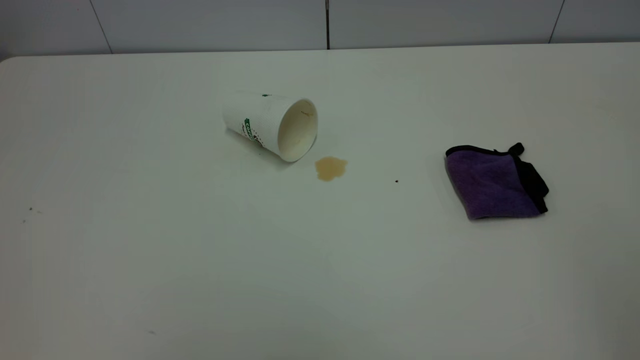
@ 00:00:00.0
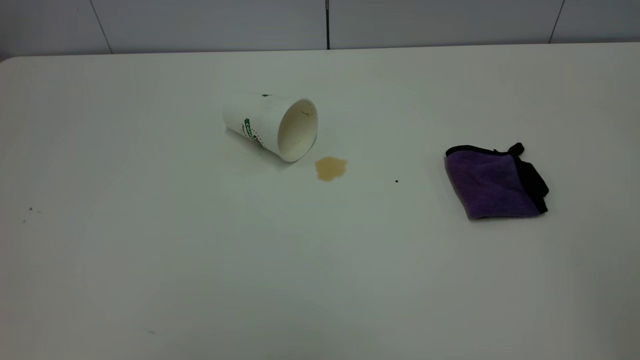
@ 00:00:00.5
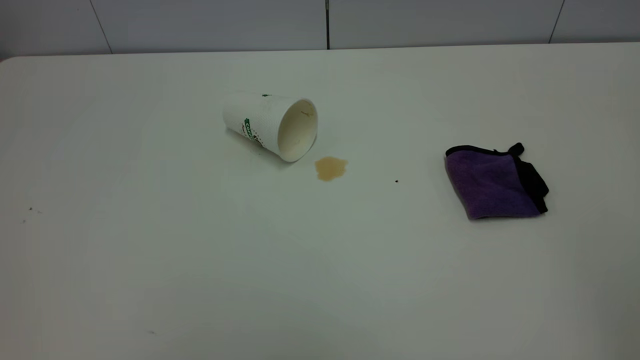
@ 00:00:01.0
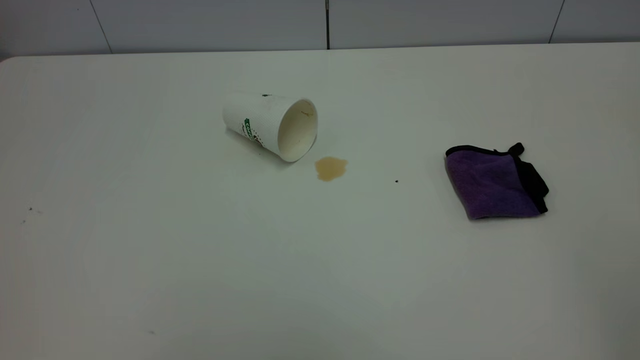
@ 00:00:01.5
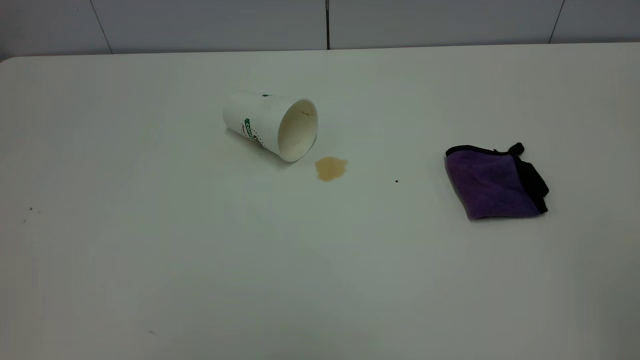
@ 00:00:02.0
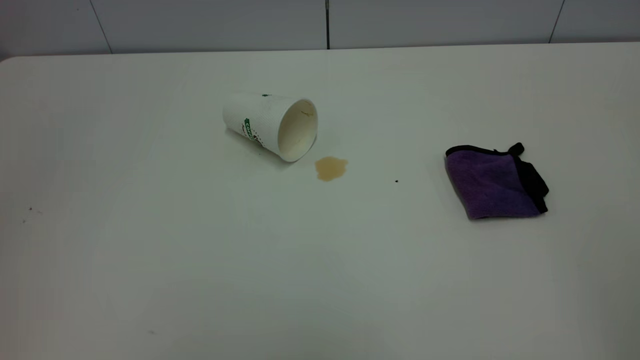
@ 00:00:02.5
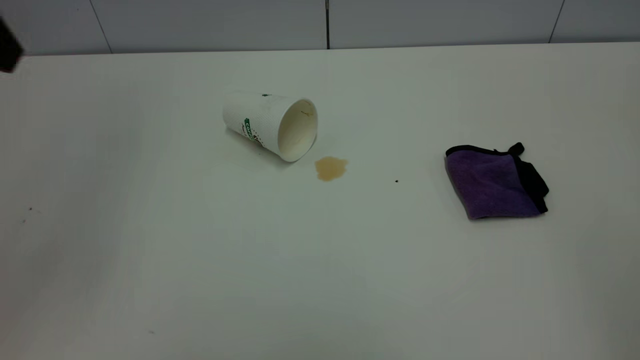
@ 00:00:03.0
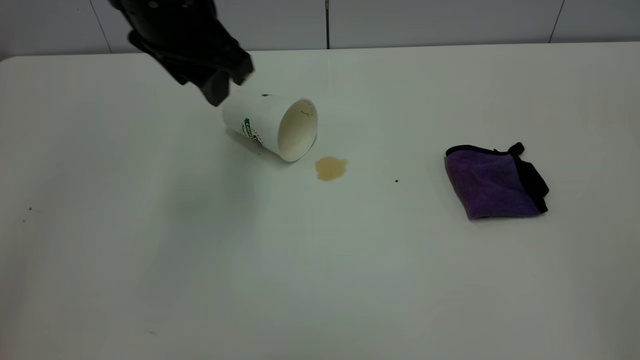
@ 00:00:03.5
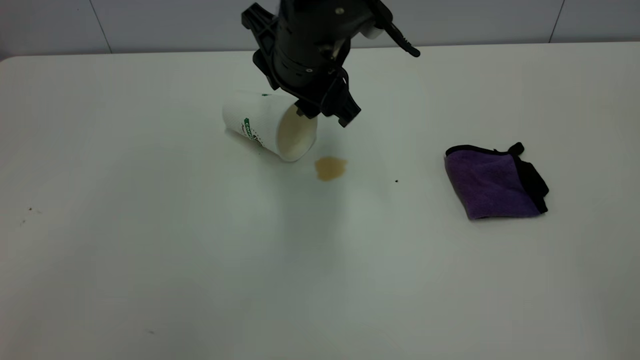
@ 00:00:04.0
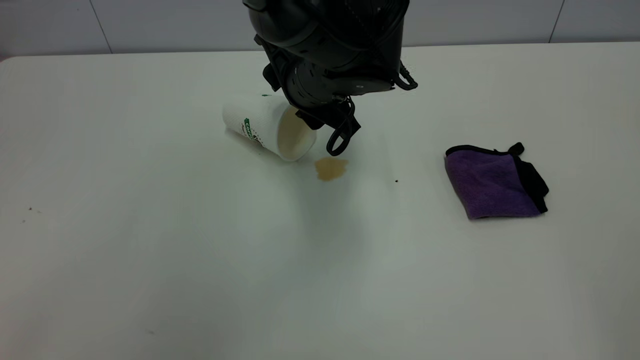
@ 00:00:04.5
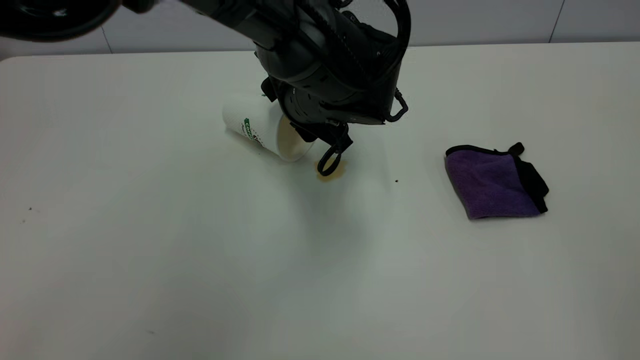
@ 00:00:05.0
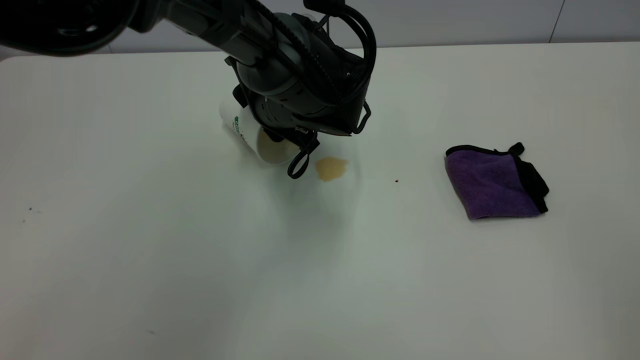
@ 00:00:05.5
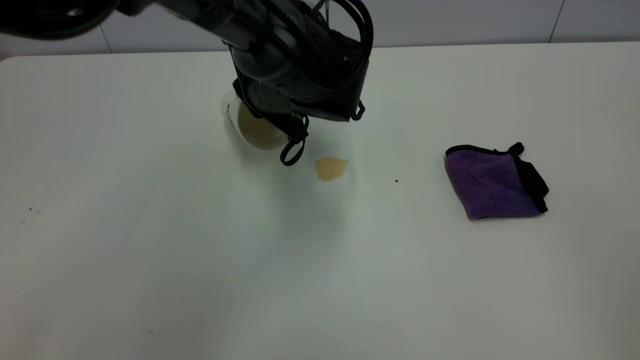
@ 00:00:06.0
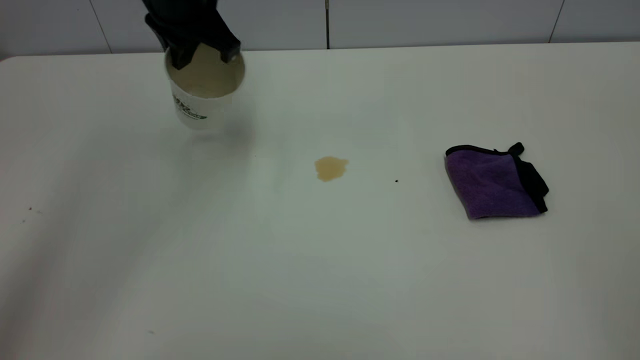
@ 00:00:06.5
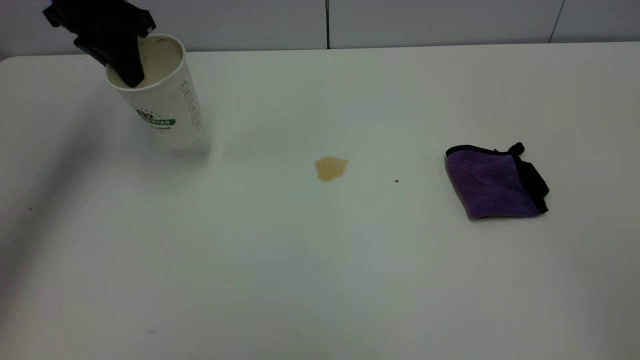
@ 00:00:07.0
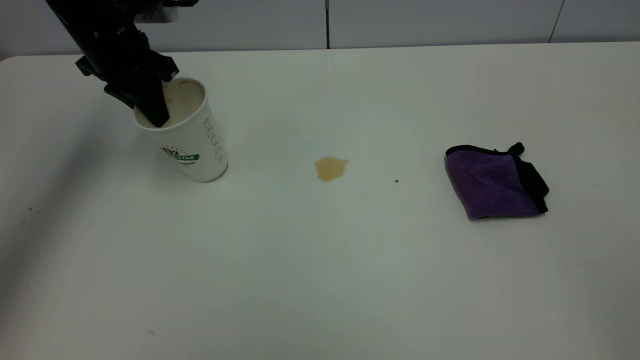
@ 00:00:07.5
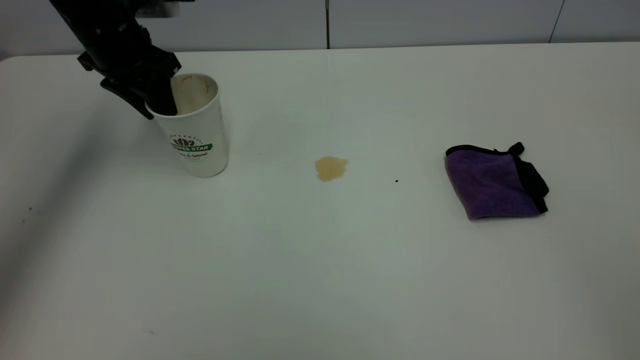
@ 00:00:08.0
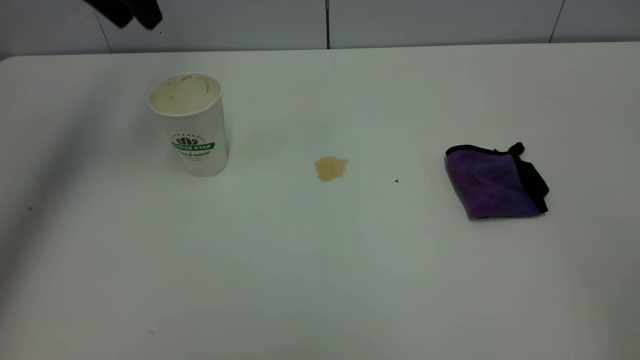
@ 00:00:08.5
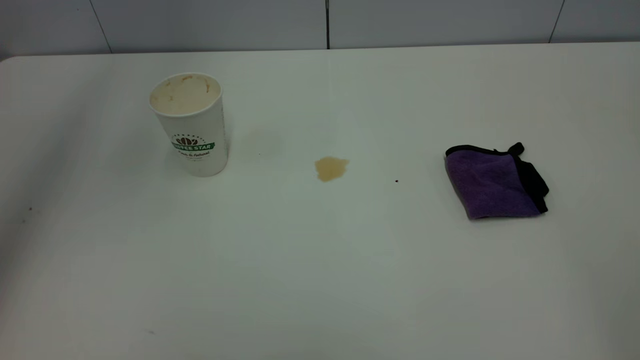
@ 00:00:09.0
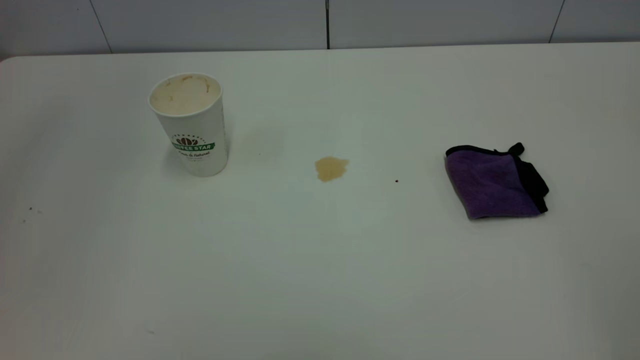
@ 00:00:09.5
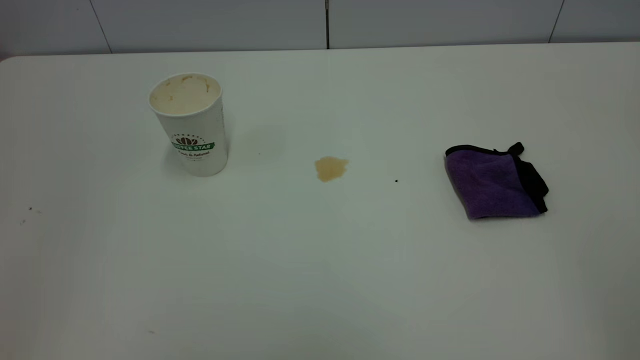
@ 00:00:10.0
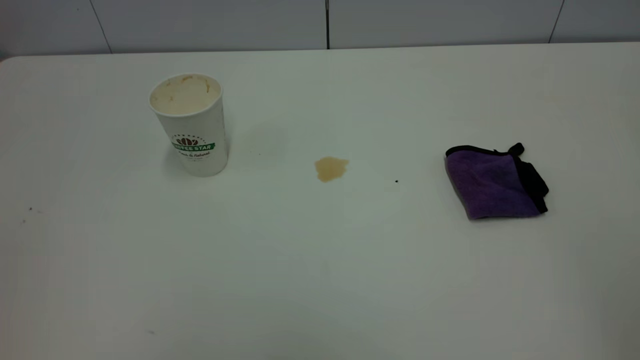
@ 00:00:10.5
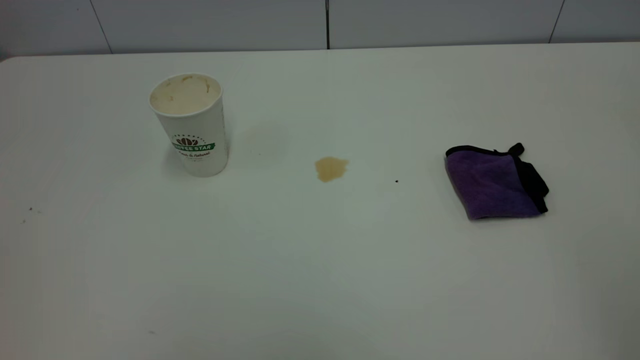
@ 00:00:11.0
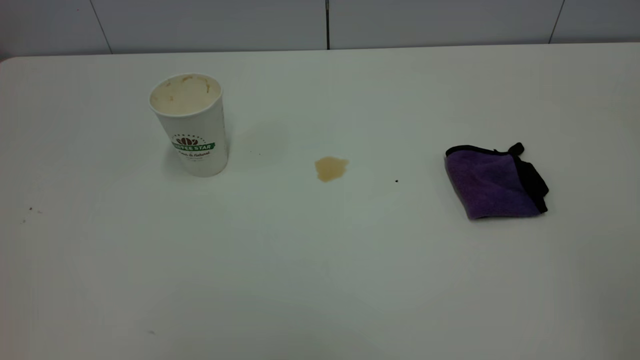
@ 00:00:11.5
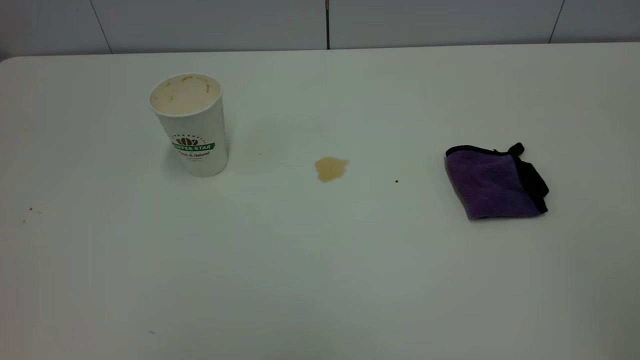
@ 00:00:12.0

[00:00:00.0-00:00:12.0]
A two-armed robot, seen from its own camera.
Task of the whole recording: the left gripper pick up the fallen cup and place it upright, the right gripper grasp the purple rag and wipe the tea stain on the table, the right gripper put the purple rag back in its original position.
Step, 00:00:00.0 to 00:00:08.0: Stand the paper cup upright.
00:00:00.0 to 00:00:02.0: Both grippers stay put.
00:00:02.0 to 00:00:04.0: The left gripper is displaced forward, to the right and downward by approximately 50 cm.
00:00:04.0 to 00:00:06.0: The left gripper travels downward by some 5 cm, and closes.
00:00:06.0 to 00:00:08.0: The left gripper shifts about 20 cm to the left, and opens its fingers.
00:00:08.0 to 00:00:10.0: The left gripper moves backward and upward, roughly 40 cm.

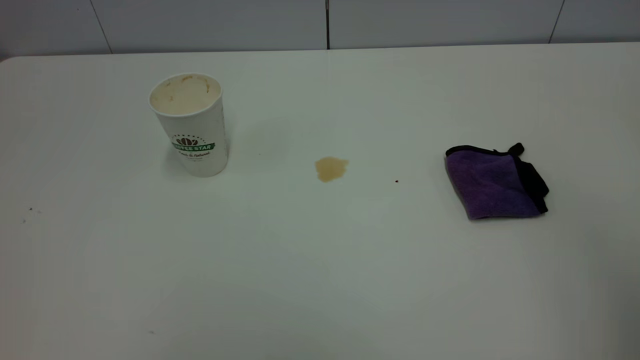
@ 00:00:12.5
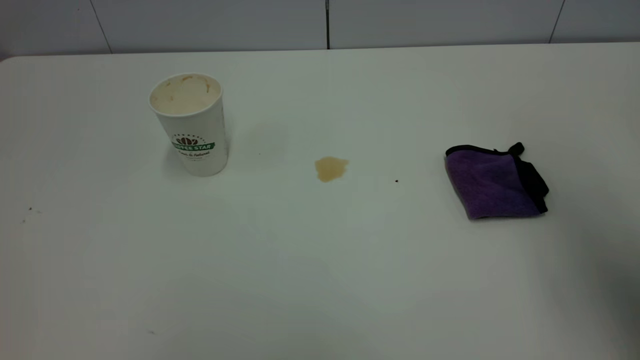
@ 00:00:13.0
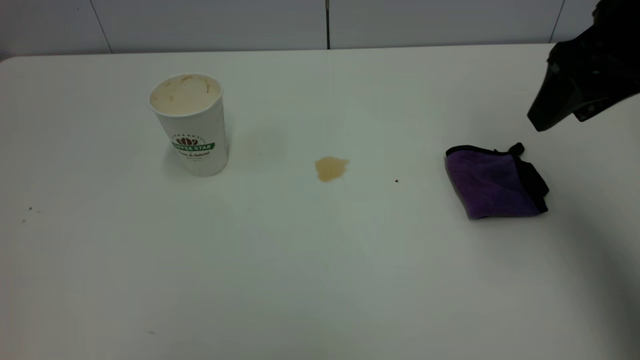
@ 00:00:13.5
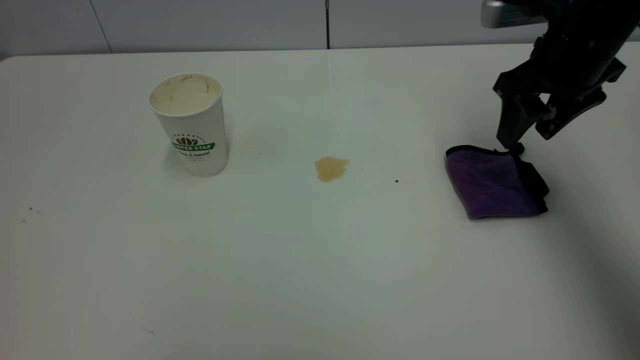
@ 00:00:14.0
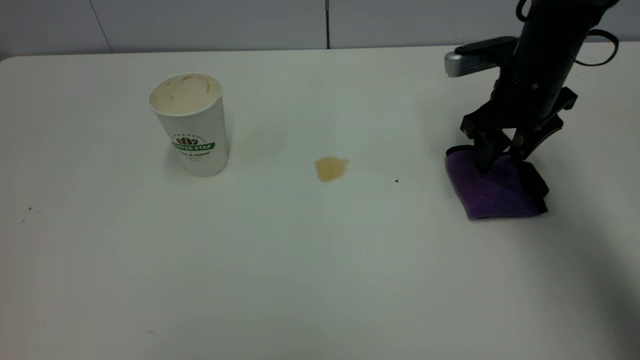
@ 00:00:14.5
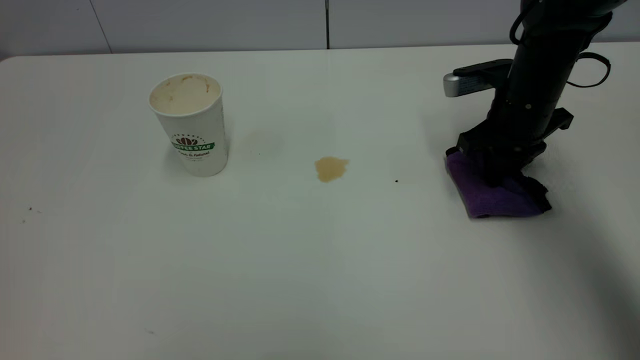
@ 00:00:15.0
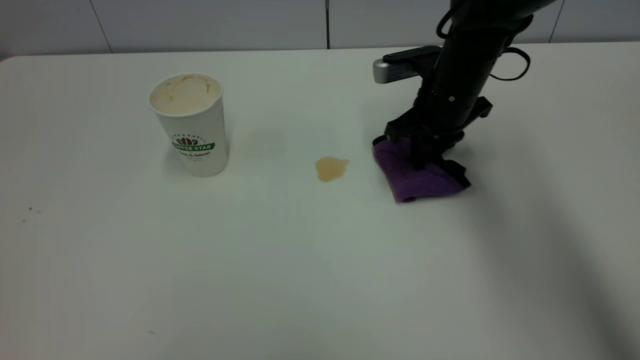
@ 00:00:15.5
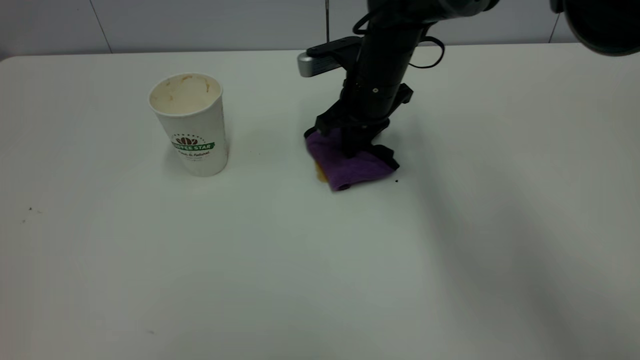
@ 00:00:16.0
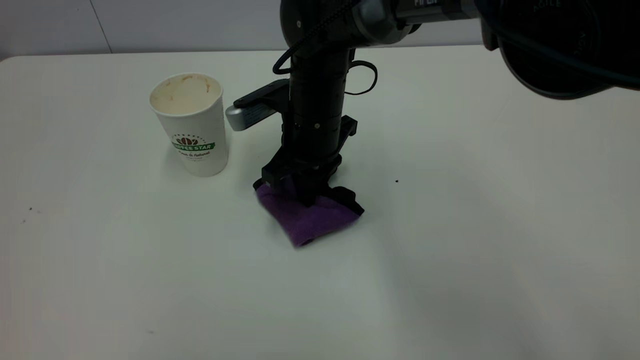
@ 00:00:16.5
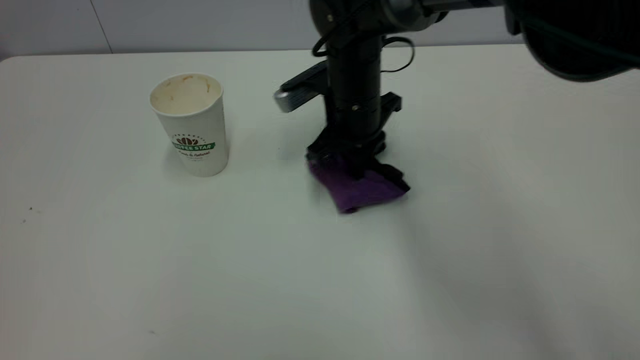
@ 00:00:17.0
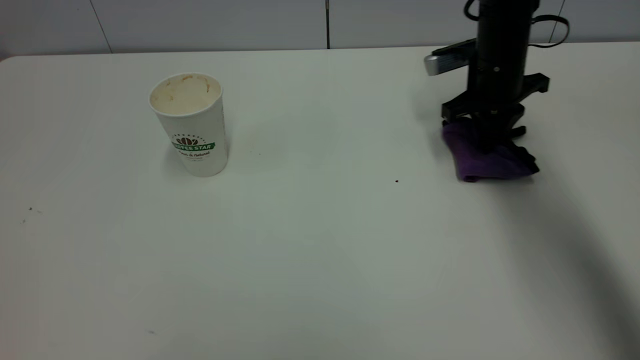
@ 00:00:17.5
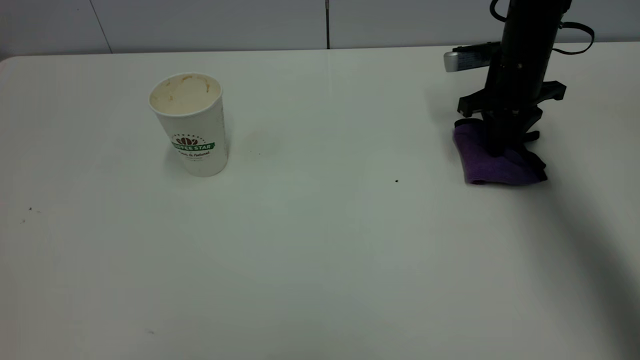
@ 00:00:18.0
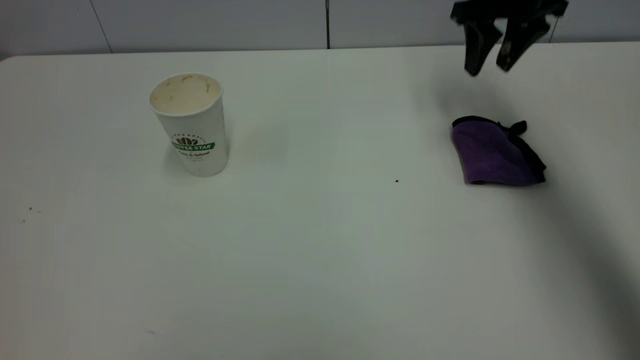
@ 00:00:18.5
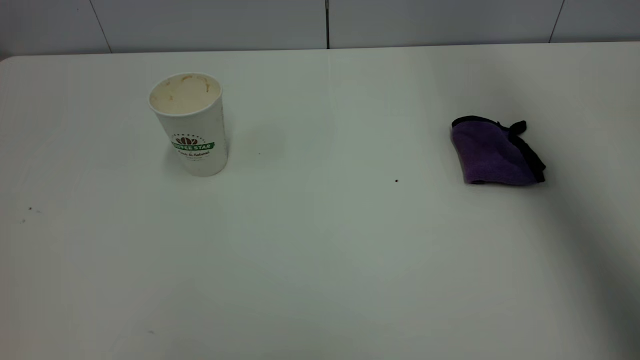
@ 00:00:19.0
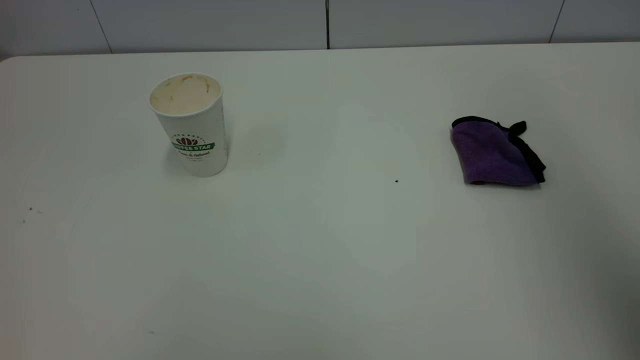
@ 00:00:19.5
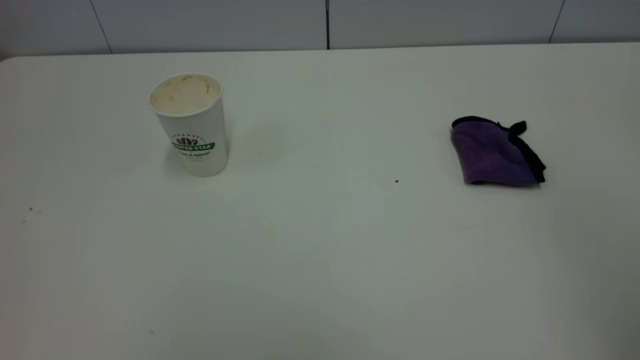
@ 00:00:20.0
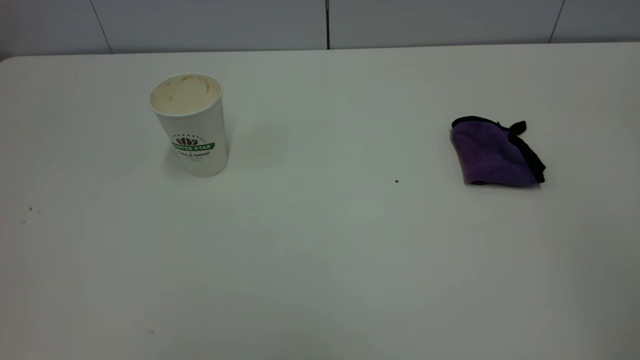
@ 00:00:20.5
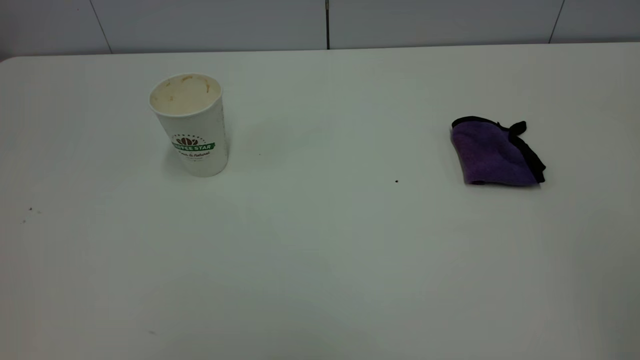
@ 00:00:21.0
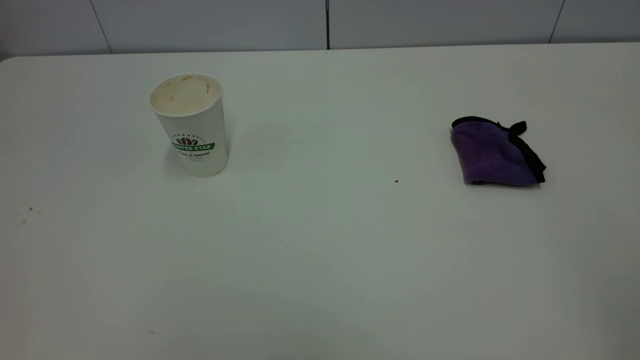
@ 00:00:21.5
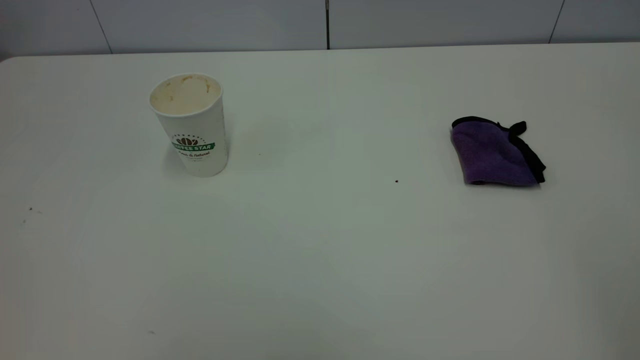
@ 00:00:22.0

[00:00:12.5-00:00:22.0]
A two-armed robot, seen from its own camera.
Task of the whole recording: the left gripper pick up the fallen cup and place it upright, the right gripper grasp the purple rag and wipe the tea stain on the table, the right gripper put the purple rag back in its original position.
Step, 00:00:12.5 to 00:00:18.0: Wipe the stains off the table with a rag.
00:00:12.5 to 00:00:14.5: The right gripper moves forward and downward, about 40 cm.
00:00:14.5 to 00:00:16.5: The right gripper shifts roughly 25 cm to the left, and closes its fingers.
00:00:16.5 to 00:00:18.0: The right gripper heads to the right, covering roughly 25 cm.
00:00:18.0 to 00:00:20.0: The right gripper moves backward and upward, some 50 cm, and opens its fingers.
